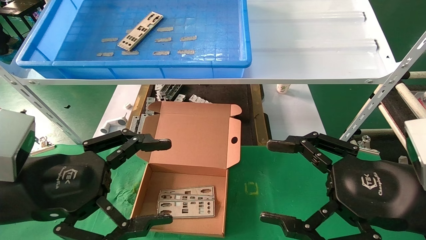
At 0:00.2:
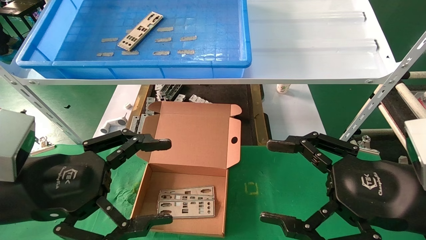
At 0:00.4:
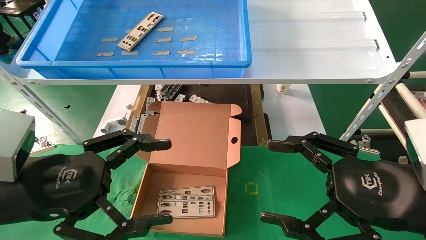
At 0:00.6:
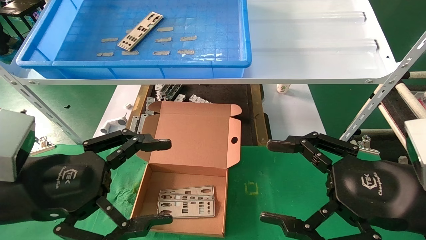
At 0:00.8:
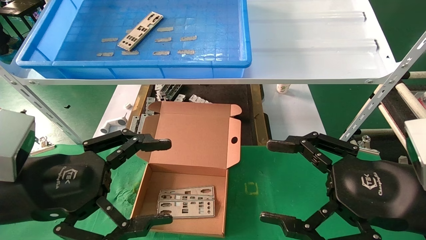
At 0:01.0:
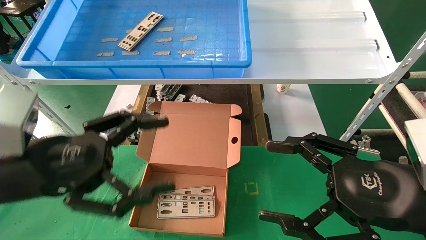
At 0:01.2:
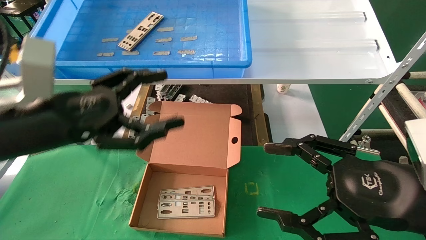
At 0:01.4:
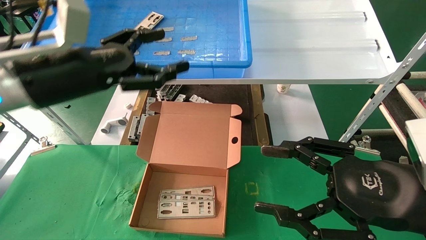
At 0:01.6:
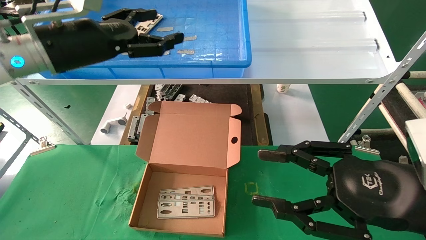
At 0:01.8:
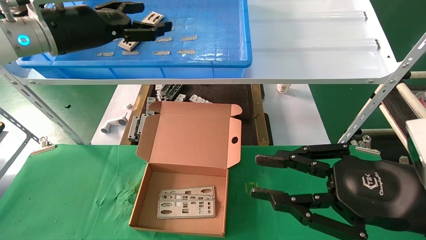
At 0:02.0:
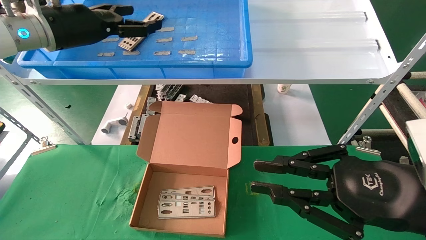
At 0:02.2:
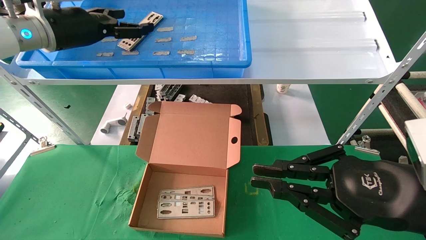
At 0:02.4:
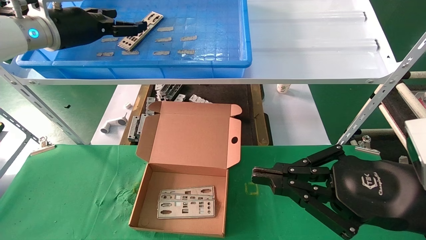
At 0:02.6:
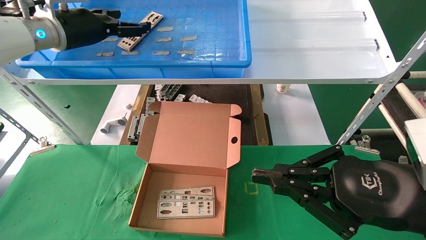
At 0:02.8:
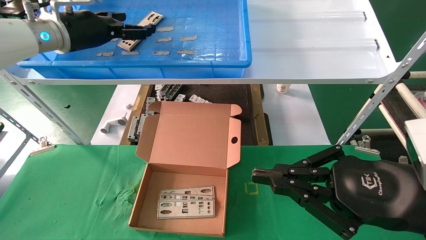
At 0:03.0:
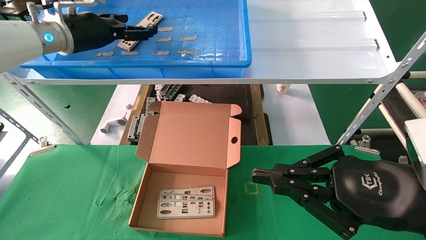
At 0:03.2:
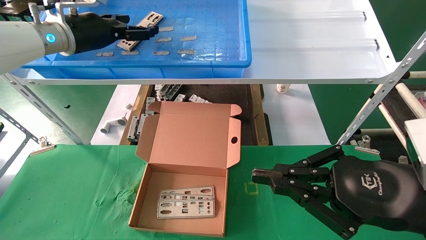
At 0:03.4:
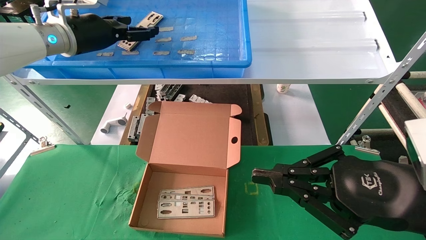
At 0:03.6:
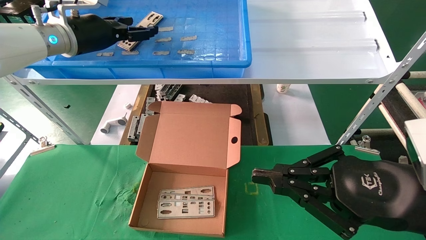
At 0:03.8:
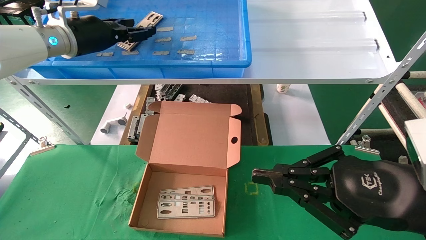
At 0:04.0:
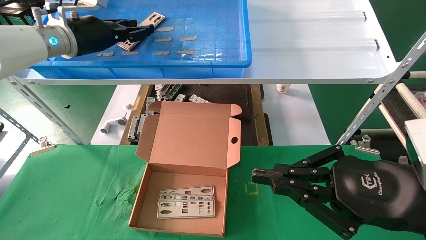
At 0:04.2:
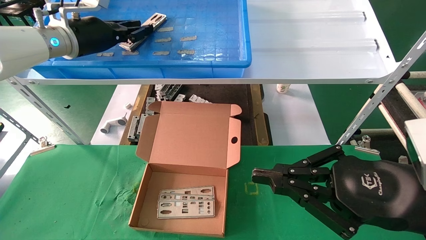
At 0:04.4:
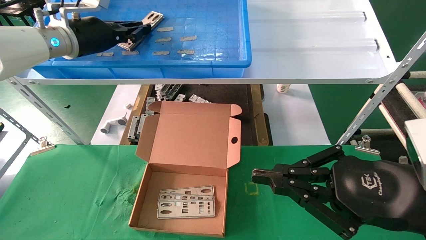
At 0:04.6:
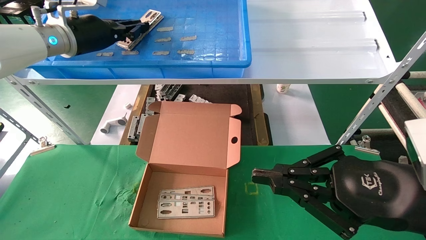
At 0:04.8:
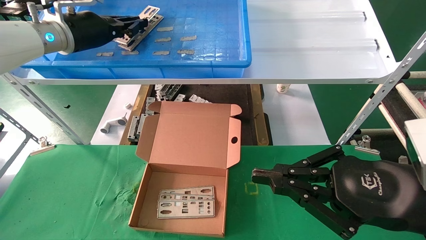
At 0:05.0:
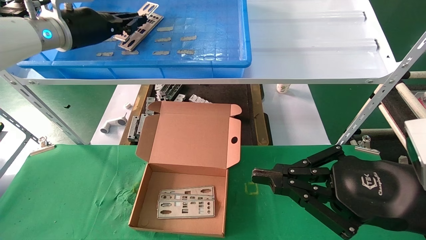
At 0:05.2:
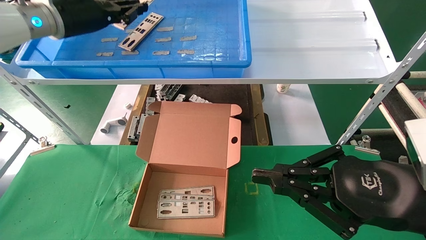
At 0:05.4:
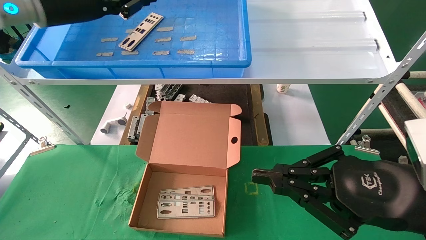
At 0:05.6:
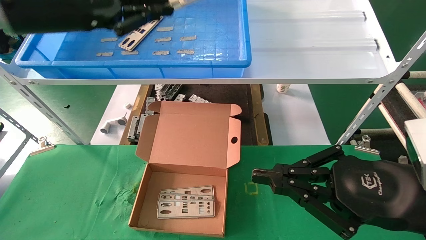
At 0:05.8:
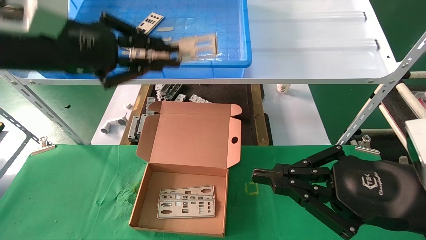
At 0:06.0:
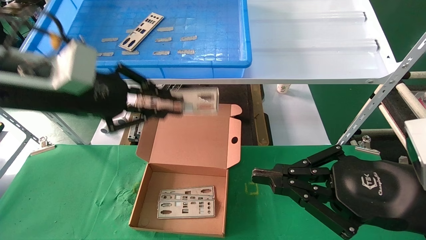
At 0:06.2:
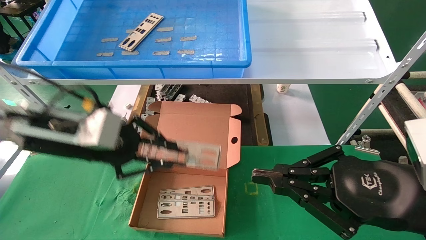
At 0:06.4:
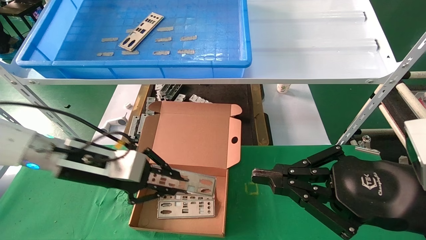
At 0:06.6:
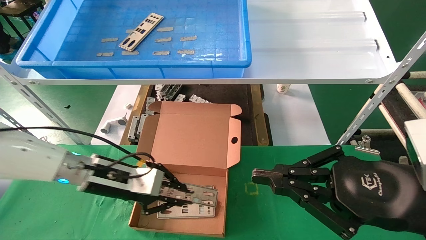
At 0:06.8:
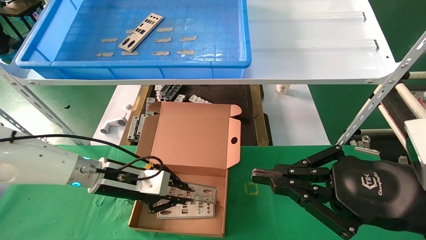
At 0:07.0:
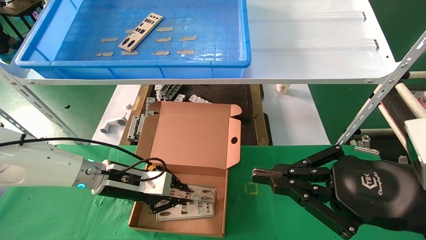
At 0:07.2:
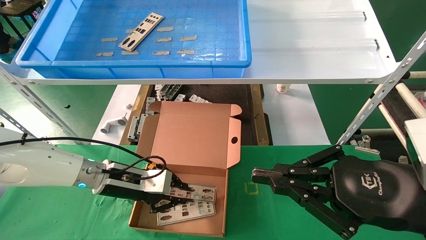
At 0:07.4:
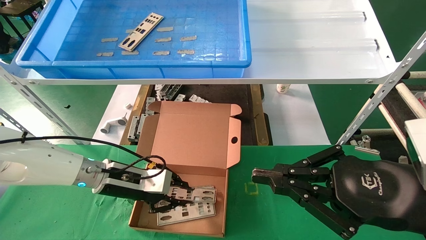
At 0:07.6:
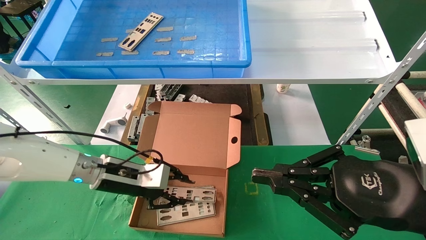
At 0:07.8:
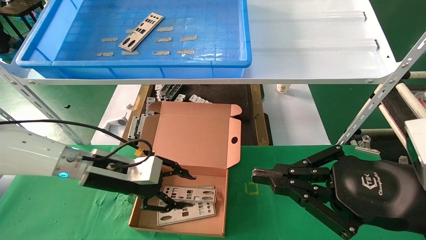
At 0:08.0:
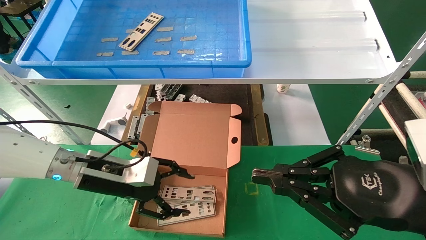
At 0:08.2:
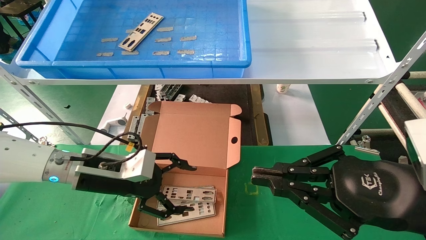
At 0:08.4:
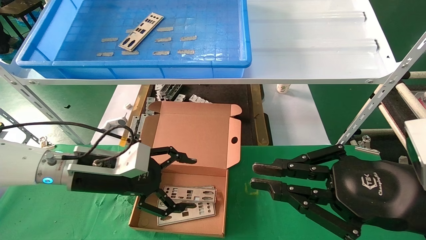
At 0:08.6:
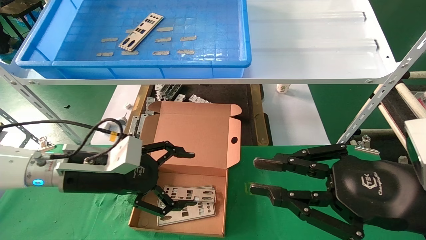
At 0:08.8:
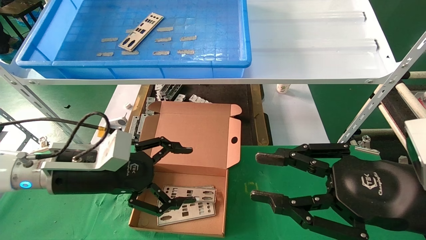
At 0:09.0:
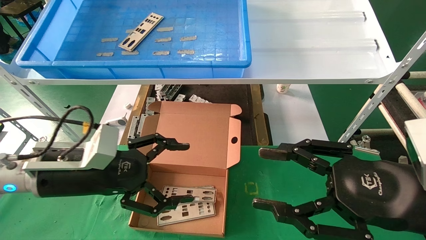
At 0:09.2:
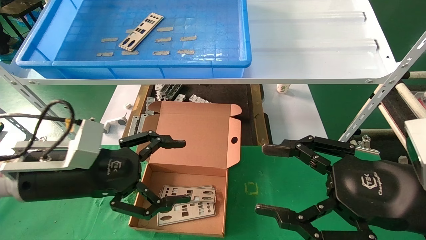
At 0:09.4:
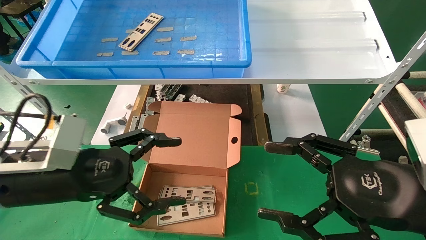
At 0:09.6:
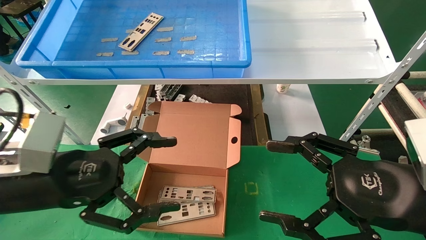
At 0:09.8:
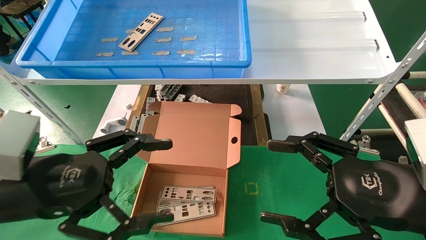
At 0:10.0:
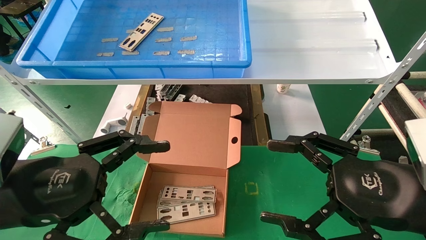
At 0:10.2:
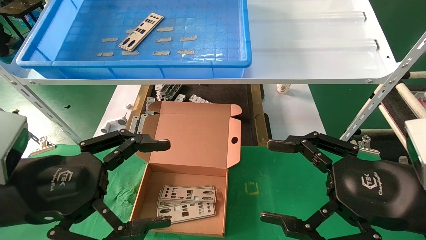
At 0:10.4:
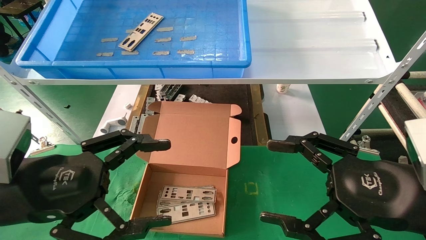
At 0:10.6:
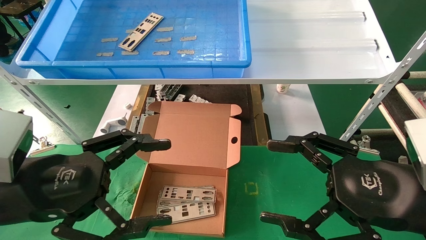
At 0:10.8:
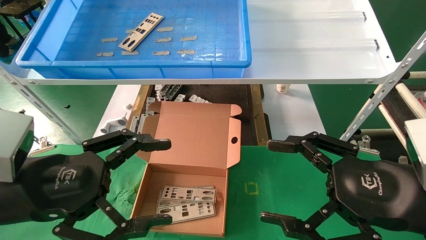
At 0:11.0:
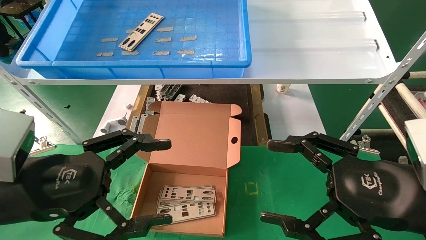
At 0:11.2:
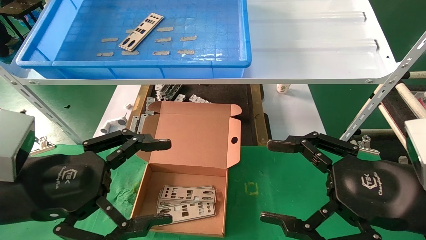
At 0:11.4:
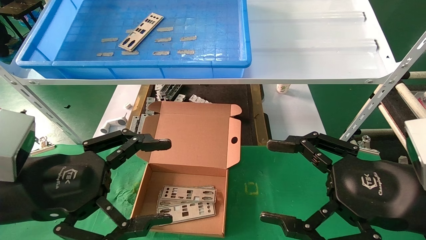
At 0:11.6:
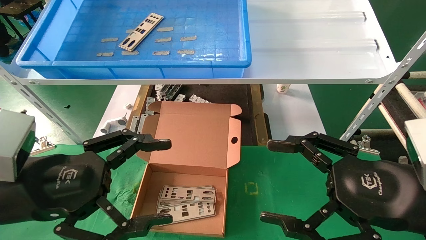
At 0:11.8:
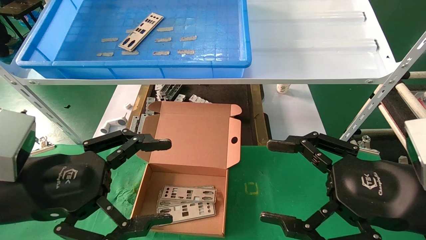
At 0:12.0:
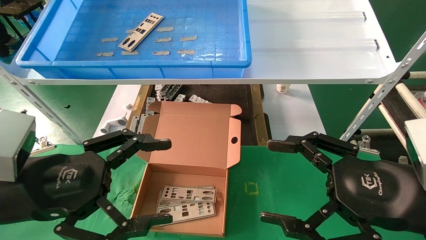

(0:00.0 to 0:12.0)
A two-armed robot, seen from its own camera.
Task of the whole recording: pick up the parts on the tray and put them in the cardboard box.
Step, 0:01.2 - 0:05.2: Pick up the IO bracket from the container box.
Step, 0:05.4 - 0:07.6: Place the IO bracket into the ingredient slot.
0:00.0 - 0:01.6: The left gripper shifts approximately 20 cm forward and upward. The right gripper closes up.
0:01.6 - 0:03.0: The right gripper closes, while the left gripper heads forward, covering about 10 cm.
0:03.0 - 0:04.4: The left gripper closes.
0:04.4 - 0:06.0: The left gripper moves backward and downward, some 15 cm.
0:06.0 - 0:07.6: The left gripper shifts about 20 cm downward.
0:07.6 - 0:09.0: The right gripper opens up, while the left gripper goes about 10 cm backward and upward, and opens its fingers.
0:09.0 - 0:10.4: The left gripper goes roughly 10 cm backward; the right gripper opens up.
0:10.4 - 0:12.0: Neither gripper changes place.

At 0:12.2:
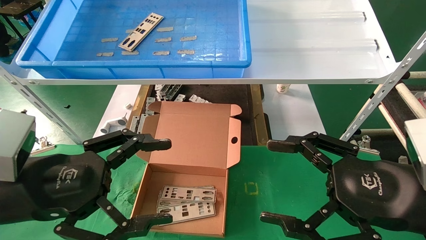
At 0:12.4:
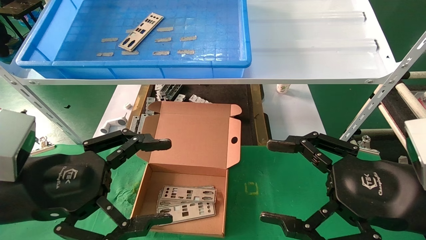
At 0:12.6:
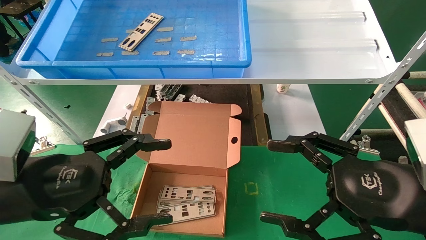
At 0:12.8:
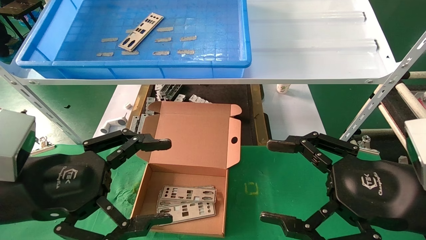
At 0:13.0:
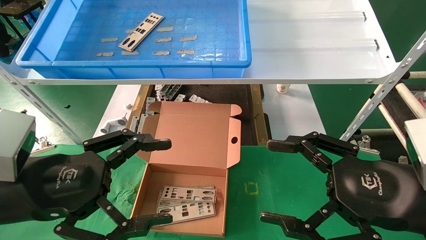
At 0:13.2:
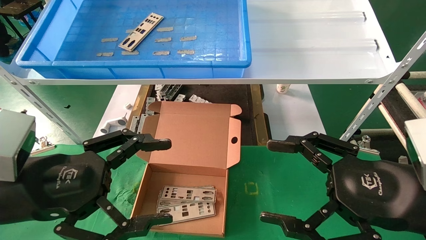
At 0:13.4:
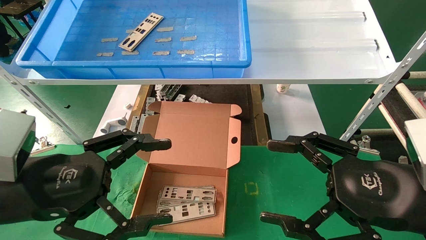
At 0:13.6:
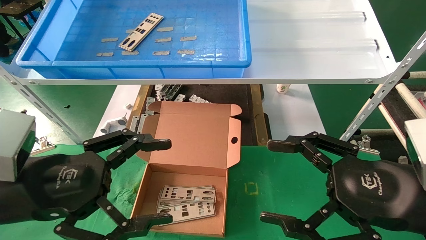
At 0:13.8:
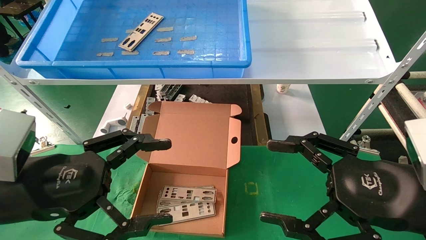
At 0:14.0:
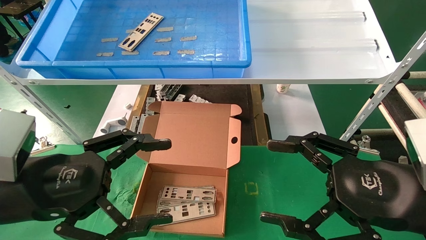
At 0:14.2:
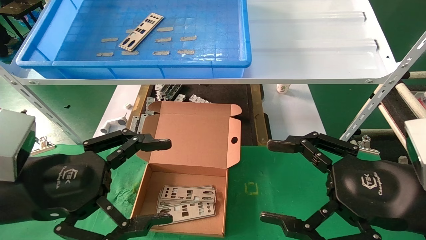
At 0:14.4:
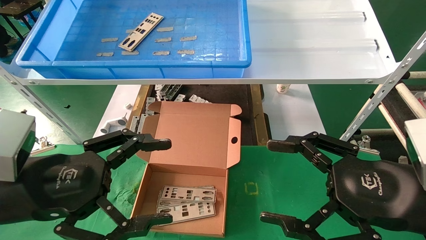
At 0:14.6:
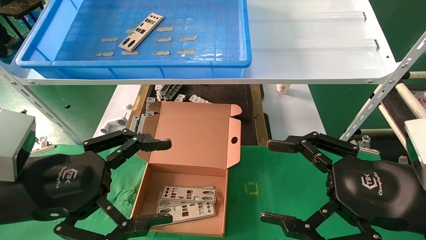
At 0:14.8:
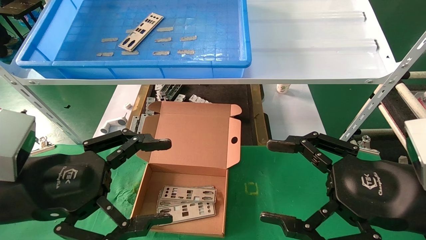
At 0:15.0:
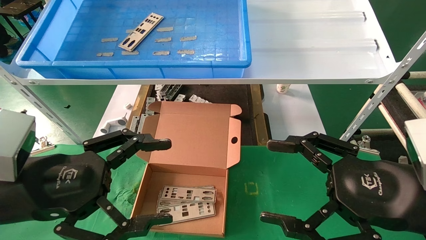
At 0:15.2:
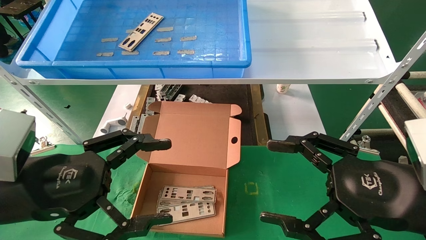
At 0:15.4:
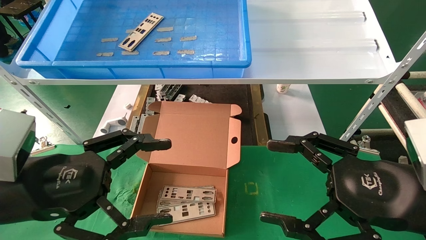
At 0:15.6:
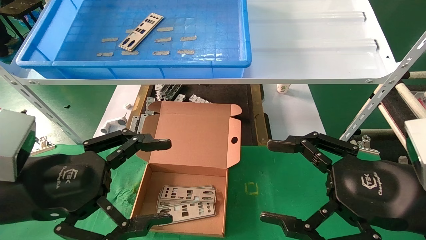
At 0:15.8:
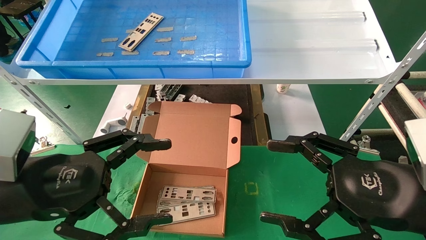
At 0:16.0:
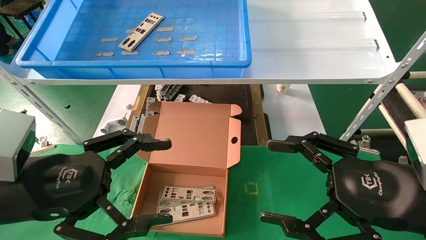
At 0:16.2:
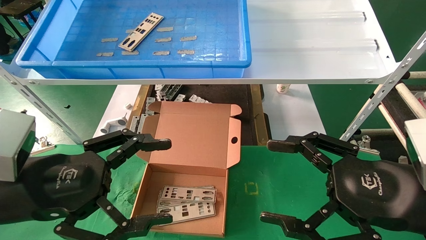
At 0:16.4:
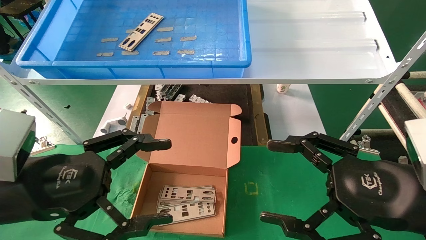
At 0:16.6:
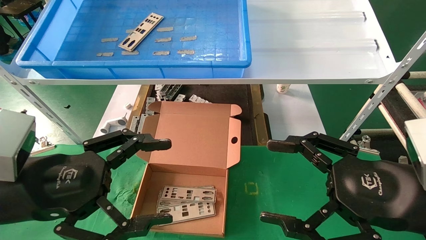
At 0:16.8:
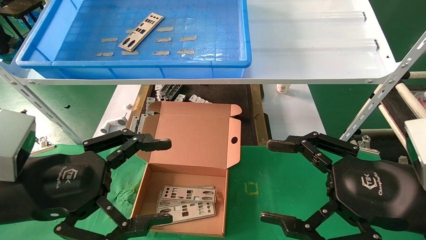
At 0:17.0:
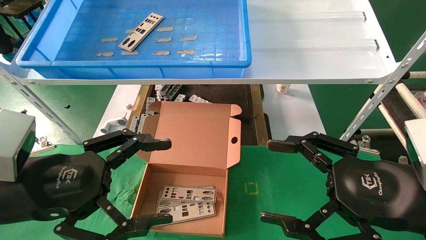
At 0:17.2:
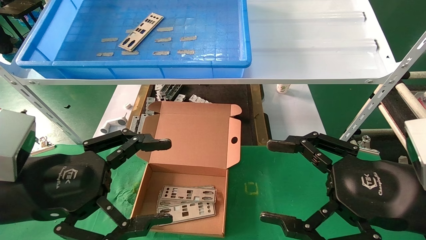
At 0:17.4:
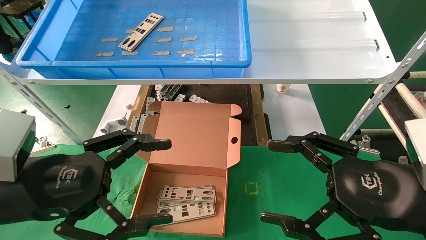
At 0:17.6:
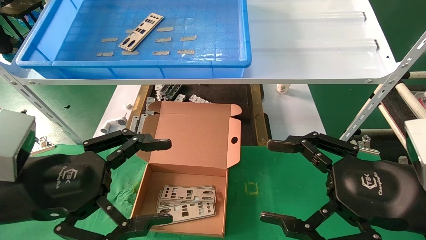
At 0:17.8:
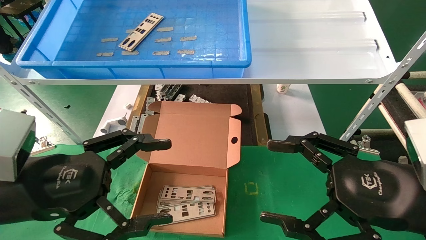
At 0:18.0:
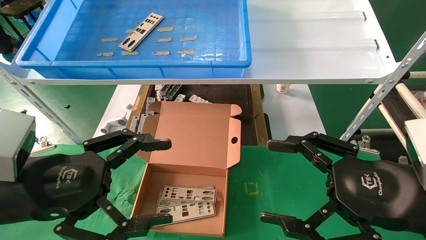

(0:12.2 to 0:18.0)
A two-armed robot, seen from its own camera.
Task of the whole recording: pick up the parts on the tray and put them in the cardboard box.
0:12.2 - 0:18.0: Both grippers stay put.
